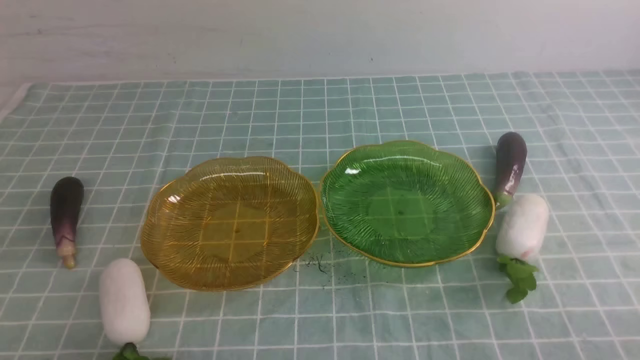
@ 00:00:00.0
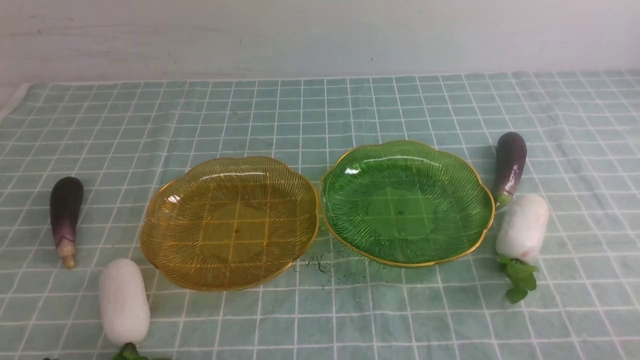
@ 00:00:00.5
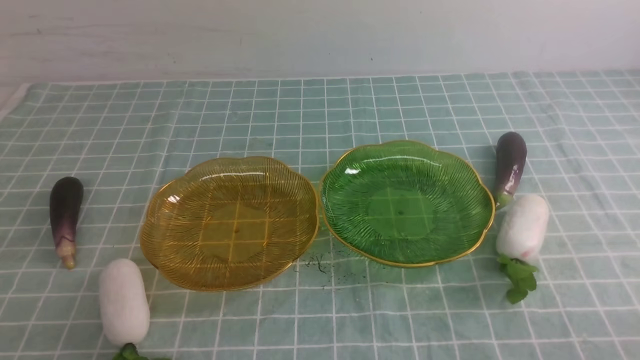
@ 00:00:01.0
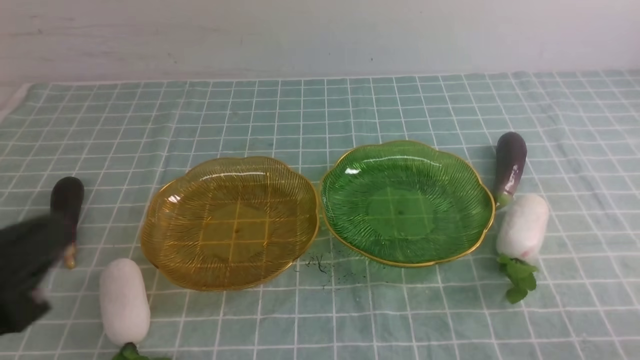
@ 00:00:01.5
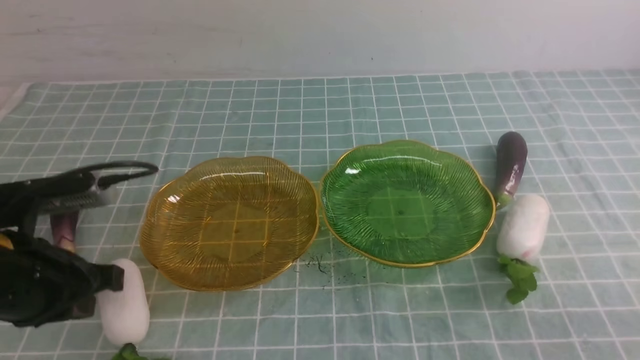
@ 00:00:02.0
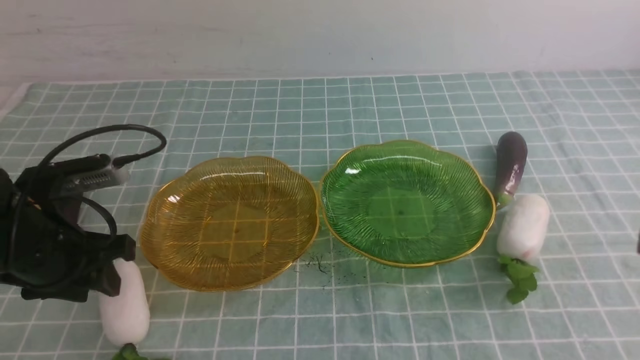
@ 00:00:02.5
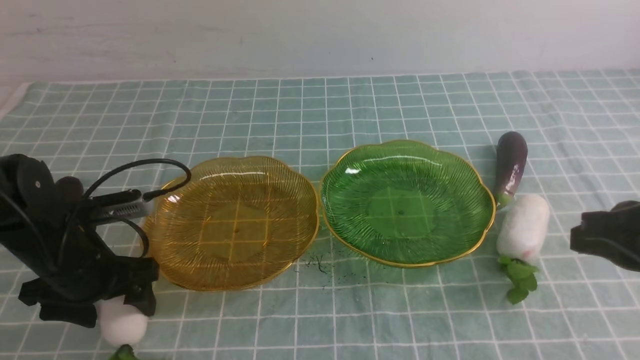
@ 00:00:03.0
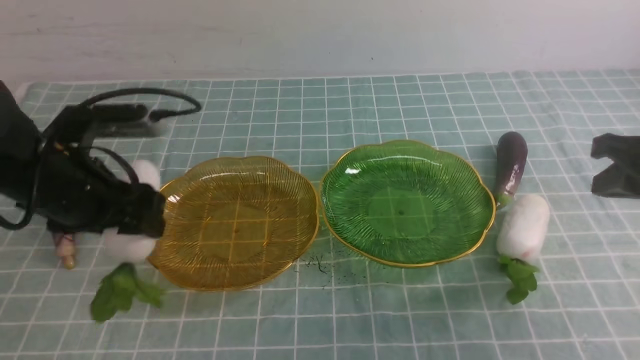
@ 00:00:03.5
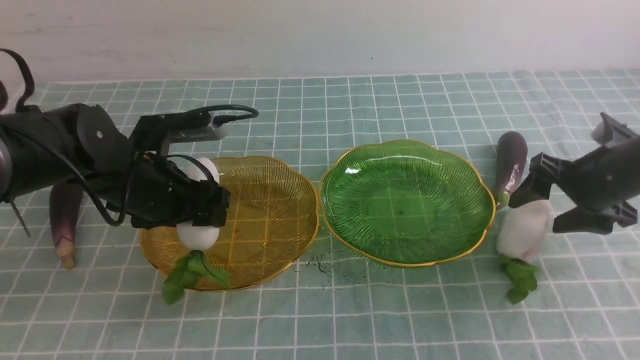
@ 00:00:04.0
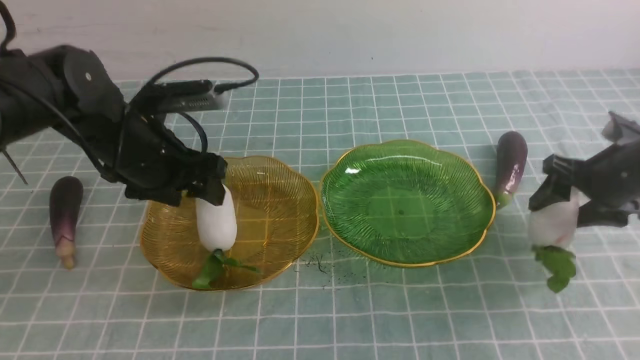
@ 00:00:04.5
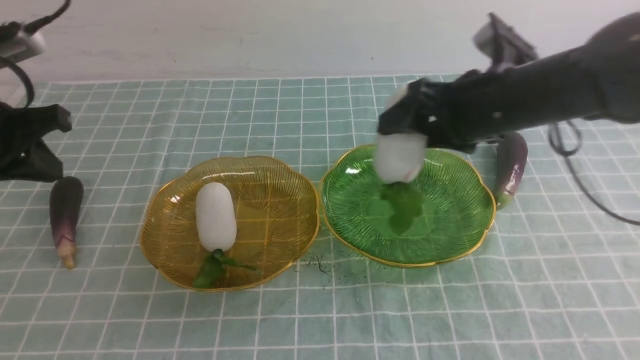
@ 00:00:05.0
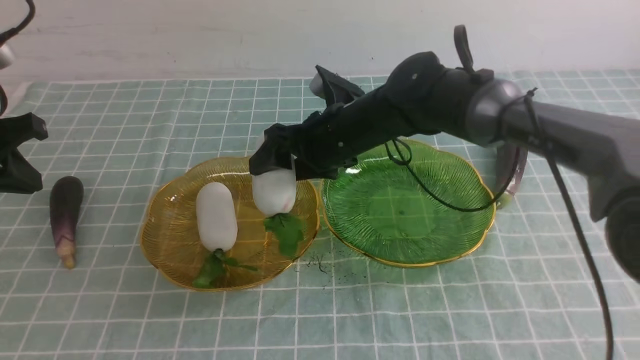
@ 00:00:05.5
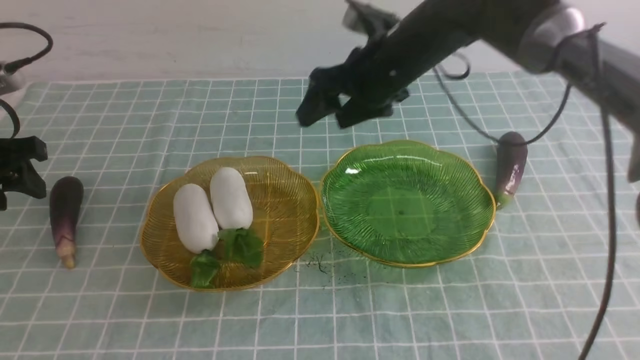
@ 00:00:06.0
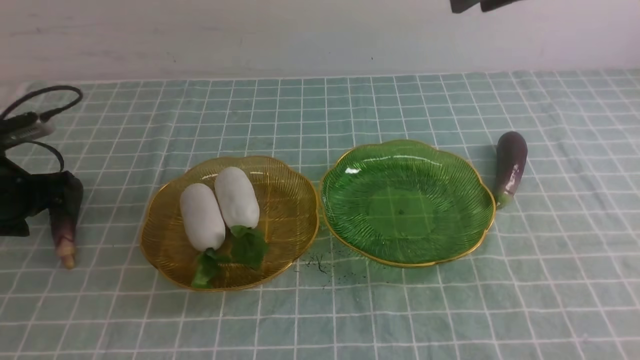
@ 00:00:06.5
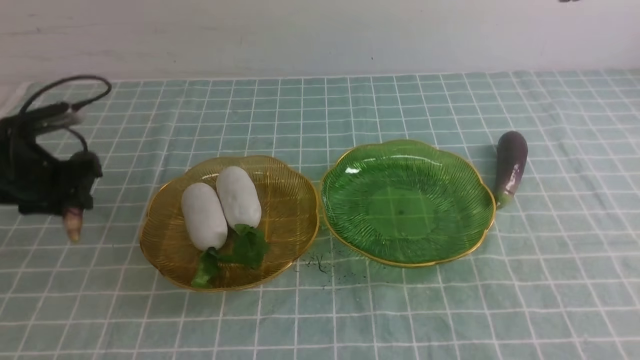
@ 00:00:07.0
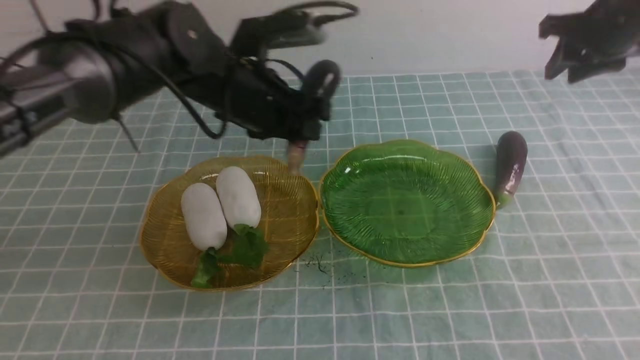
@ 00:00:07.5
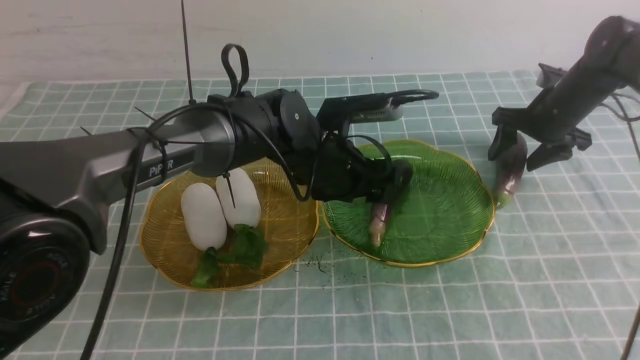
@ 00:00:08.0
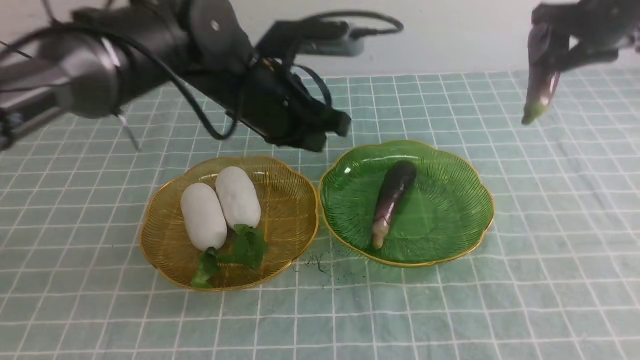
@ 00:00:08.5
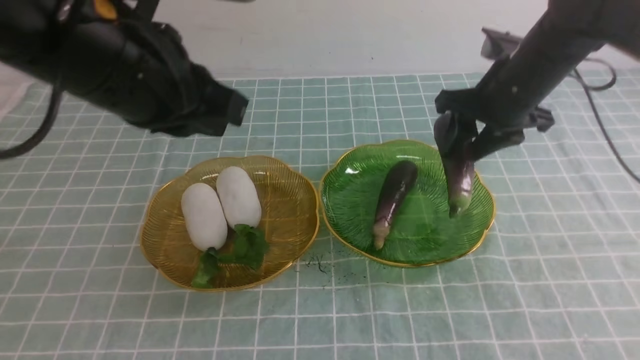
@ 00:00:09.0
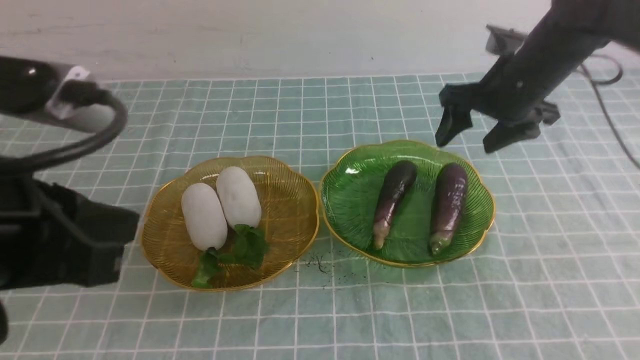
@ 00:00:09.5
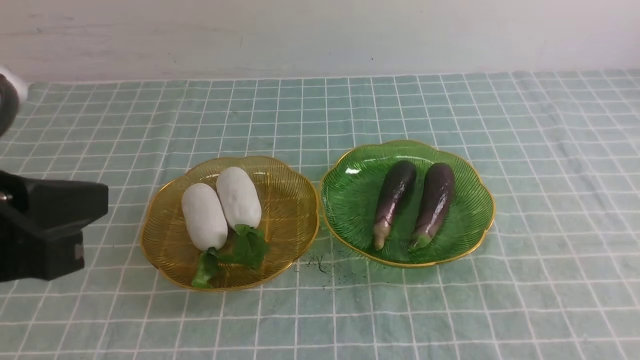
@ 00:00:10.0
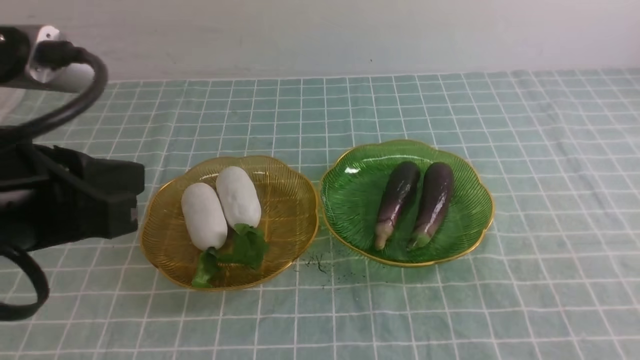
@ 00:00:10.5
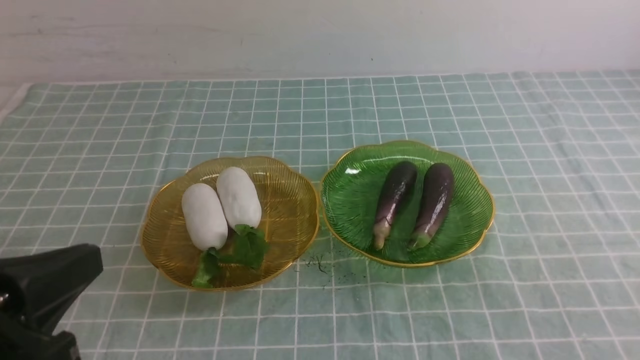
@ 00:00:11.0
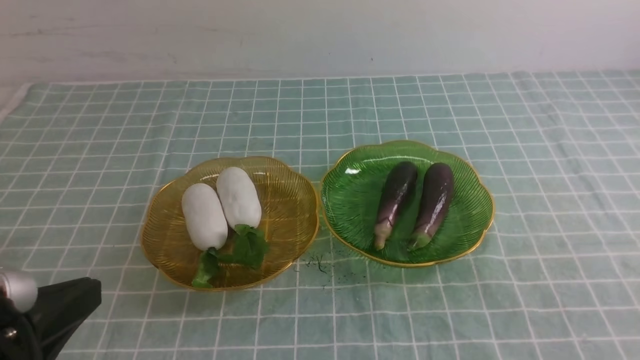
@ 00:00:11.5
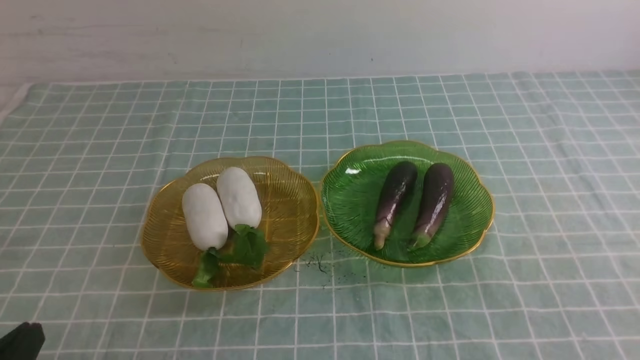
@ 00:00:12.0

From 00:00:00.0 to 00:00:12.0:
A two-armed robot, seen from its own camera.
Step, from 00:00:00.0 to 00:00:04.0: use the left arm to grab a radish and put it into the left plate.
Step, from 00:00:04.5 to 00:00:05.5: use the right arm to grab a radish and put it into the left plate.
Step, from 00:00:06.0 to 00:00:08.0: use the left arm to grab an eggplant and put it into the right plate.
Step, from 00:00:08.5 to 00:00:09.0: use the right arm to grab an eggplant and put it into the right plate.
From 00:00:00.0 to 00:00:02.0: The left gripper goes roughly 20 cm forward and upward.
From 00:00:02.0 to 00:00:04.0: The left gripper travels forward and to the right by roughly 15 cm, and opens its fingers, while the right gripper heads forward, covering approximately 30 cm, and opens up.
From 00:00:04.0 to 00:00:06.0: The left gripper goes some 15 cm to the left, and closes, then opens again. Meanwhile the right gripper heads to the left and upward, covering approximately 25 cm.
From 00:00:06.0 to 00:00:08.0: The right gripper travels to the right and downward by about 25 cm, and closes, then opens again. Meanwhile the left gripper moves to the right, roughly 35 cm.
From 00:00:08.0 to 00:00:10.0: The right gripper is displaced backward and upward by roughly 50 cm, and closes; the left gripper heads backward, to the left and upward, covering some 35 cm, and closes up.
From 00:00:10.0 to 00:00:12.0: The left gripper goes approximately 20 cm downward and backward.

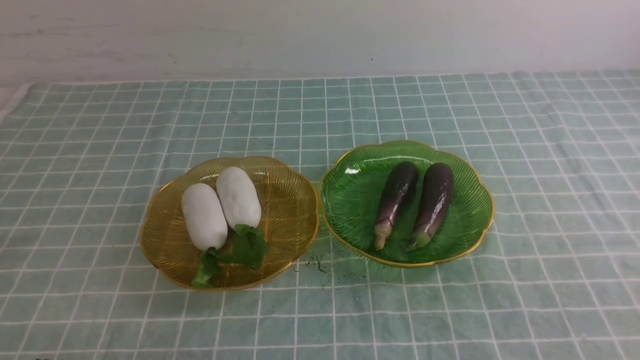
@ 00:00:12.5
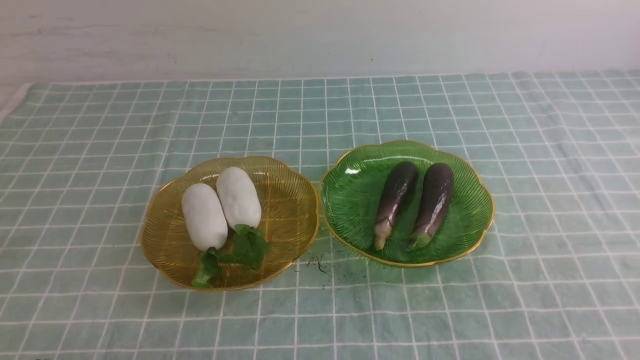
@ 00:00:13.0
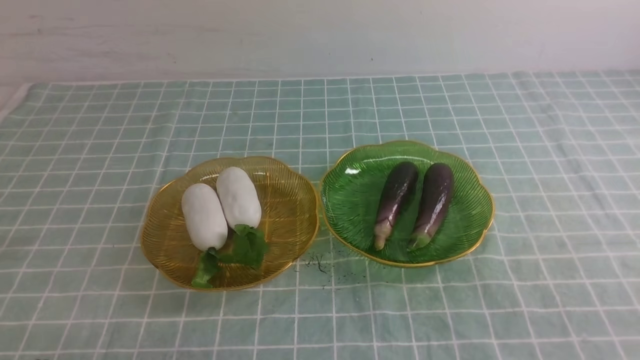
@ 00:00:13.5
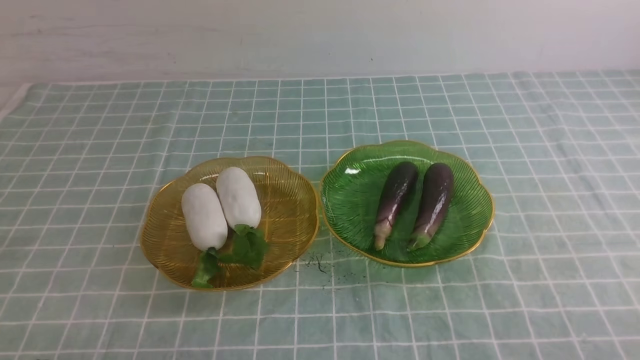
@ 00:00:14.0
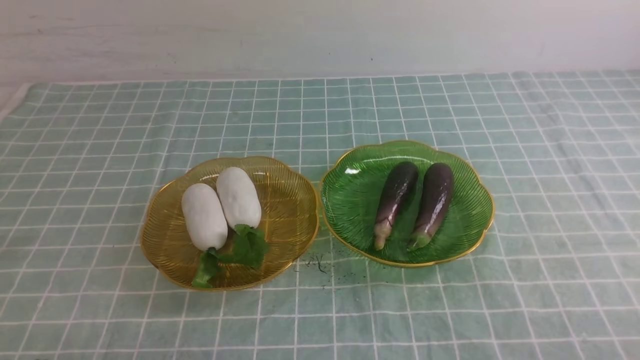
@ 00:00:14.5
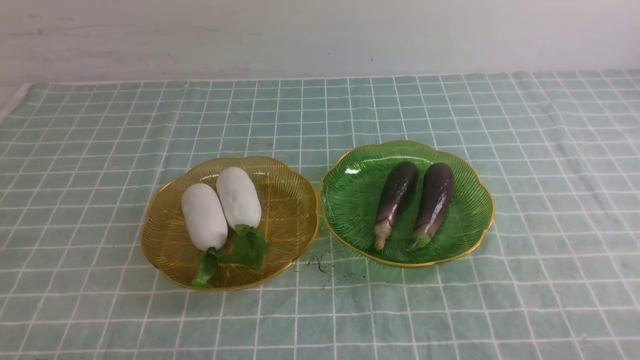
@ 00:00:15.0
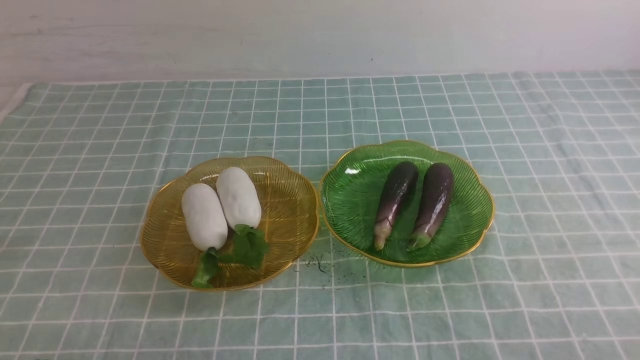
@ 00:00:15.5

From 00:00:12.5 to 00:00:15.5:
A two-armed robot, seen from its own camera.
From 00:00:14.0 to 00:00:15.5: The two grippers keep their place.
